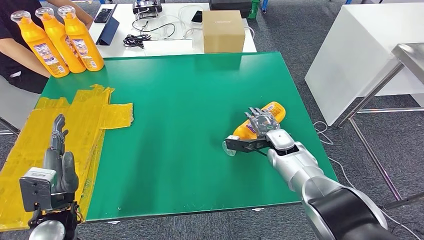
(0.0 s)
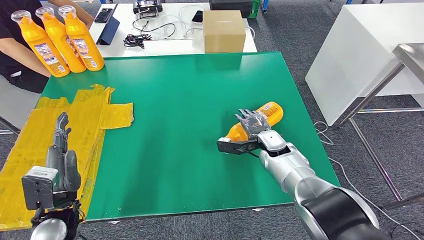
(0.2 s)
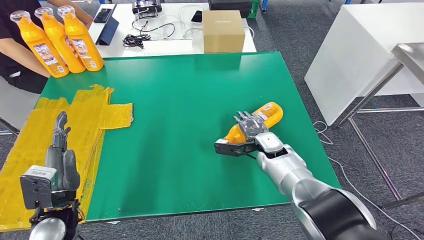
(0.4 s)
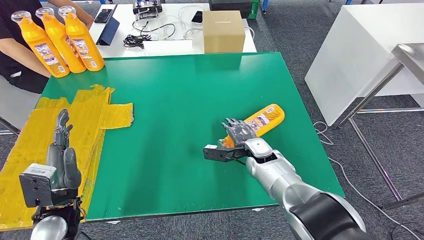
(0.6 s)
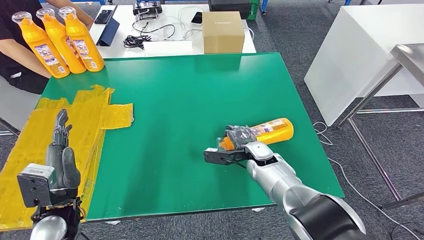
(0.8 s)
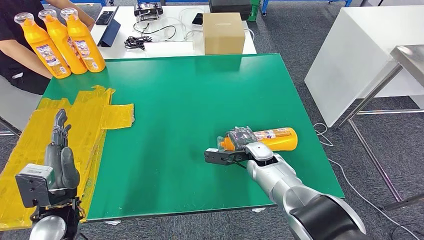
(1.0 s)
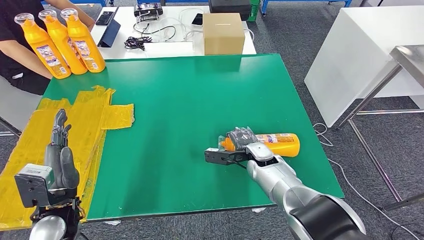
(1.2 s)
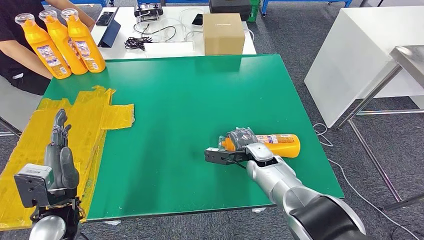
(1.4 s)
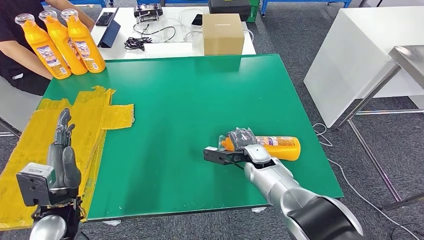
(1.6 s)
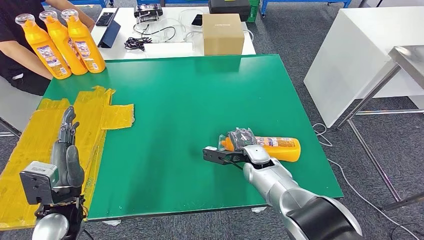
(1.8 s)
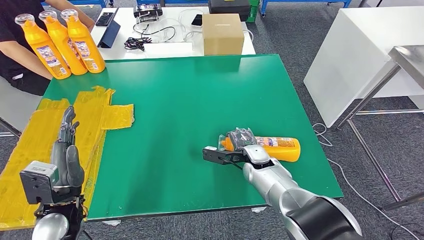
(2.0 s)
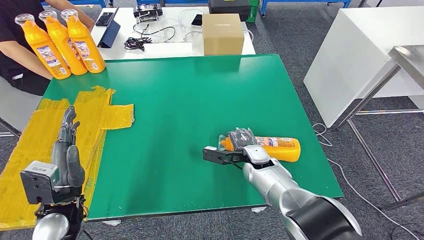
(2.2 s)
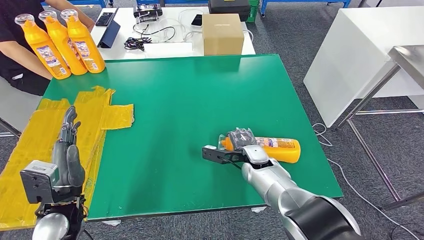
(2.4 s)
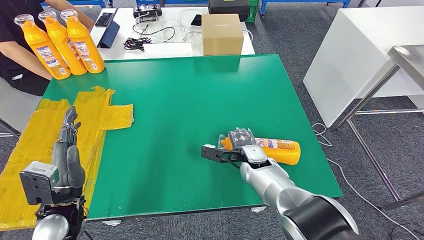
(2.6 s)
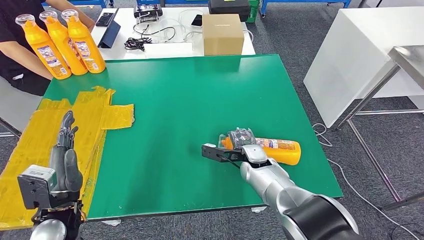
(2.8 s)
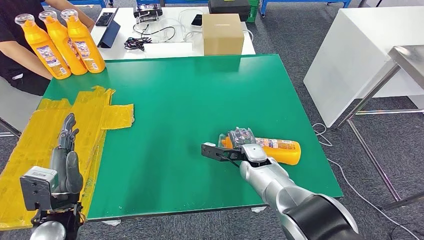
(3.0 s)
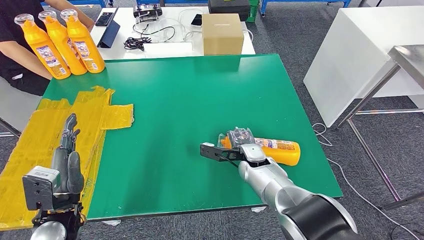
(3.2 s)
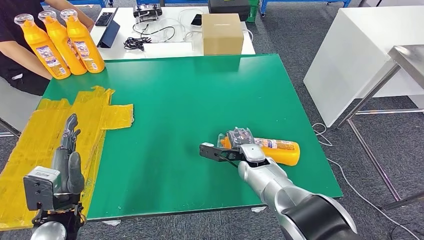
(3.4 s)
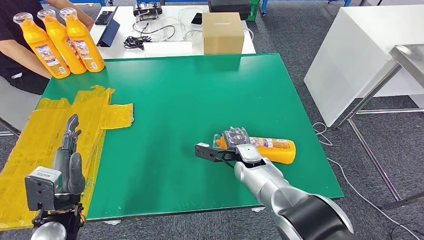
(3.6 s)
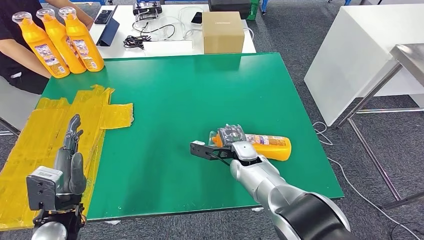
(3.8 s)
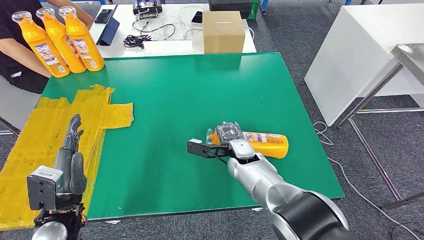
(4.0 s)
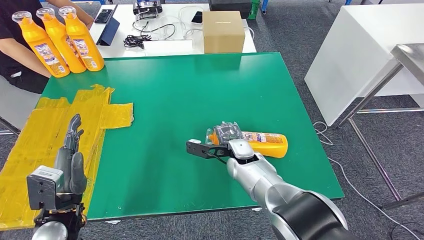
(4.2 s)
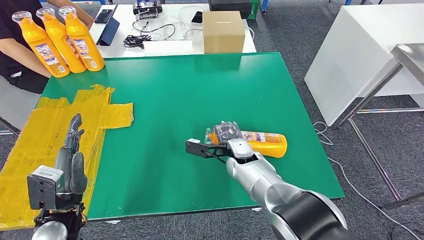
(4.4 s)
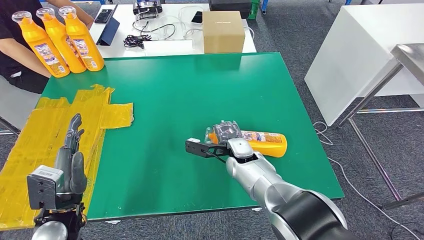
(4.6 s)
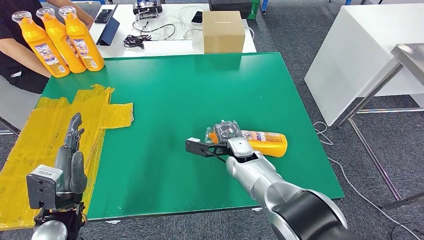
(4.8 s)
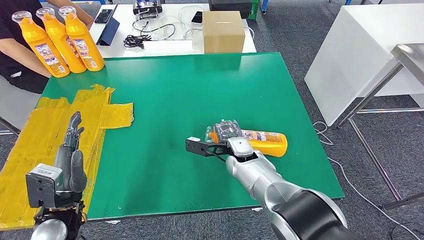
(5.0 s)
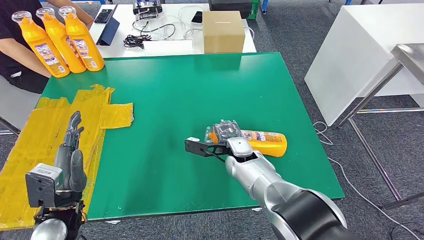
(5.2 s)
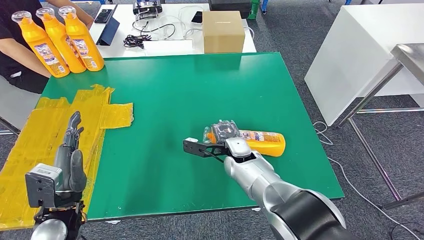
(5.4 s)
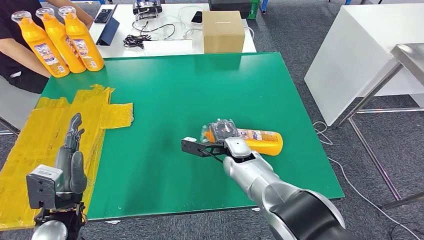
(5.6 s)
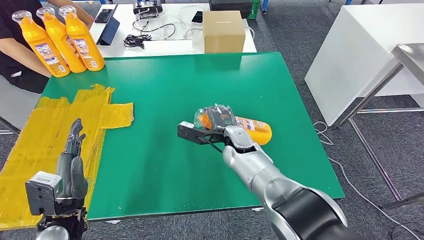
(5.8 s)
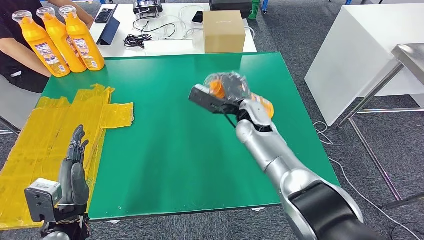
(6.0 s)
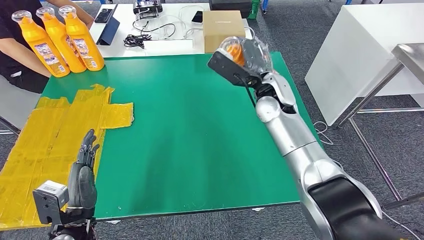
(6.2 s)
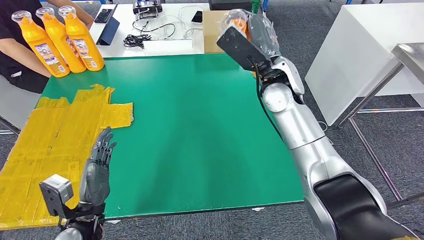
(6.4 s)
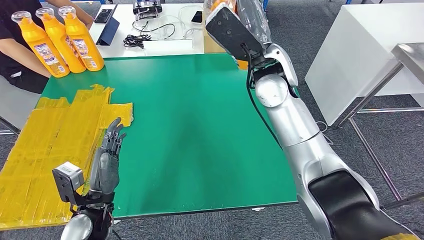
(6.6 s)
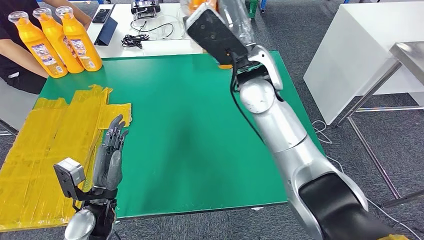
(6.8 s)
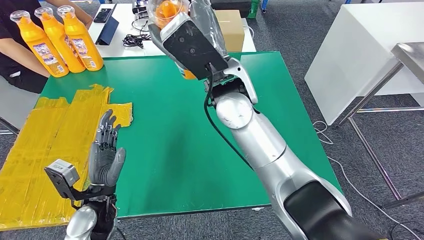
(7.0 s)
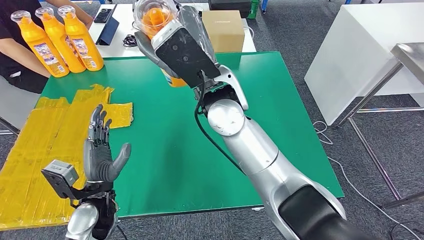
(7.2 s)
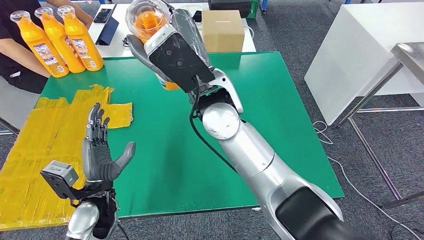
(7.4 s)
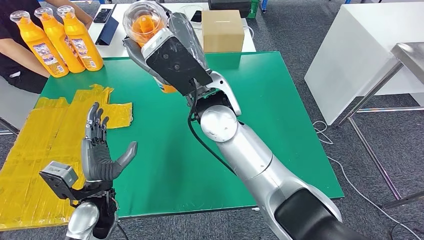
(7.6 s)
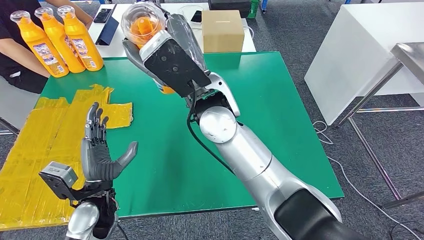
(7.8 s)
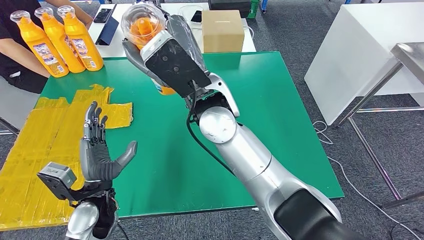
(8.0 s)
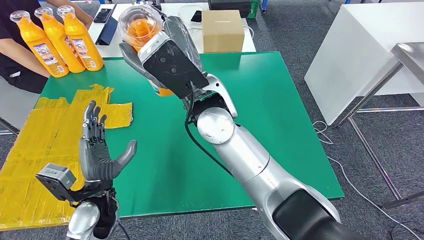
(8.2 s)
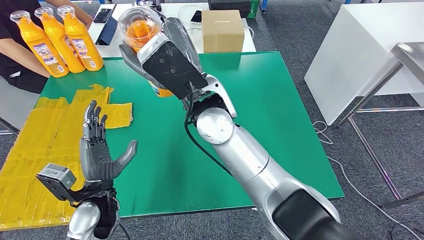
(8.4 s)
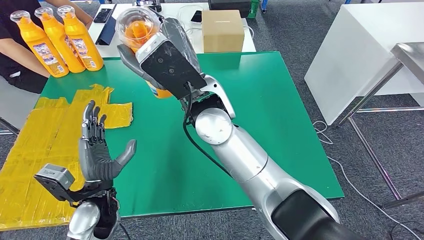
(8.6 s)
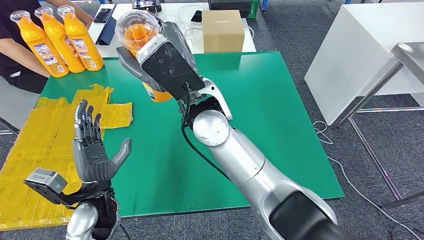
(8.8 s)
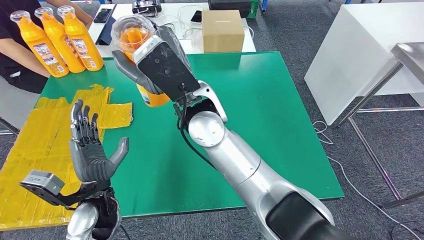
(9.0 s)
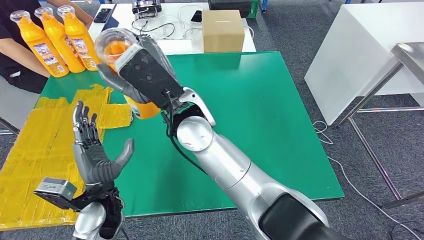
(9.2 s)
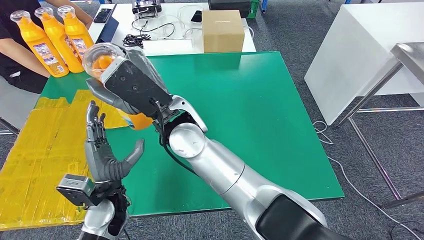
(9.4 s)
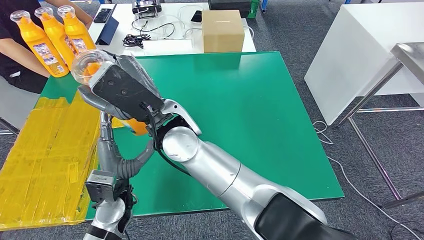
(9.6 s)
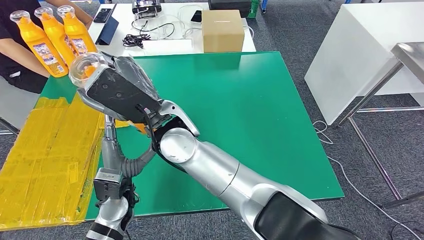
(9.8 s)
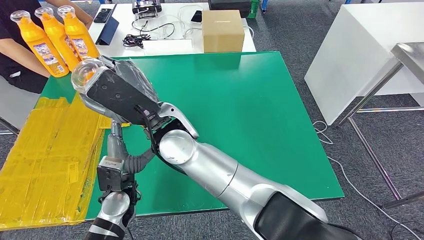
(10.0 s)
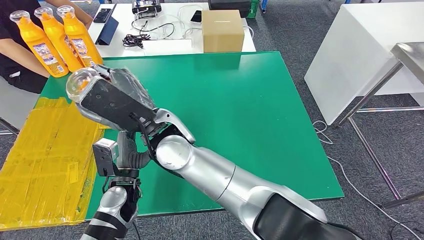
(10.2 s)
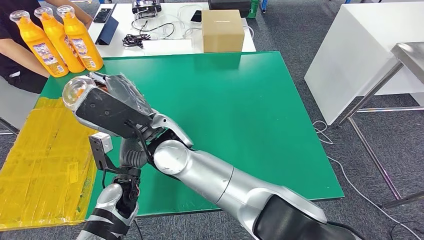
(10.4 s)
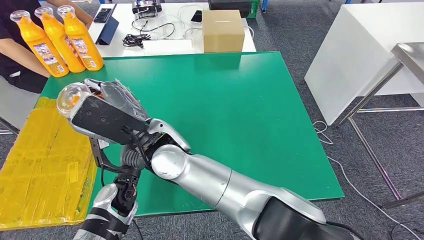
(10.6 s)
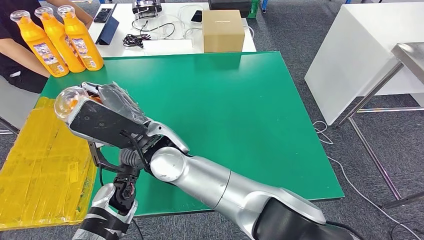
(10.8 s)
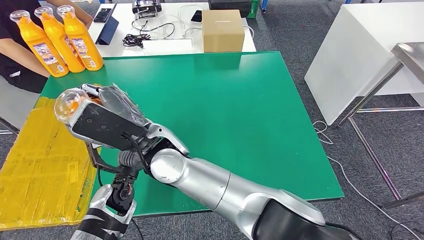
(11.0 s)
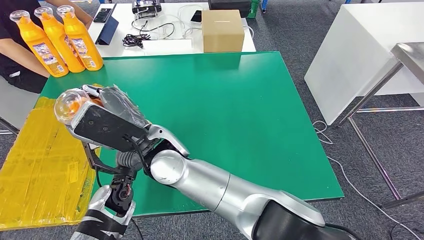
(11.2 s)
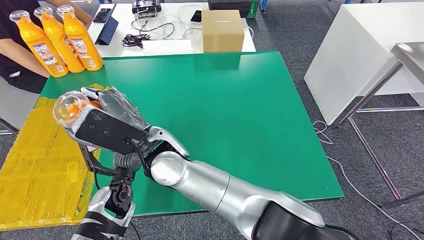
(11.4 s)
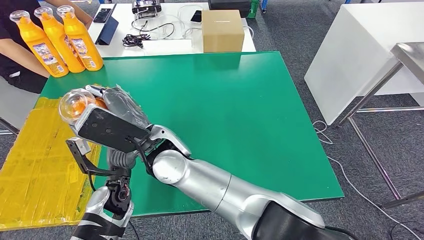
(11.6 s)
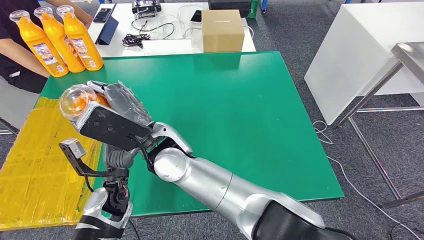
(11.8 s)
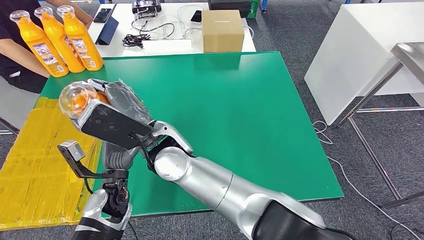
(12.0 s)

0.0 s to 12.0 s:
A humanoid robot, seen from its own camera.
Step, 0.0 to 7.4 s: Pick up the bottle from the table.
1.6 to 3.0 s: There are only small adjustments of the hands.
3.0 to 4.4 s: The right hand ends up approximately 5 cm from where it was.
4.4 to 6.0 s: The right hand goes roughly 10 cm upward.
7.6 to 9.0 s: The hands stay close to where they were, moving slightly.

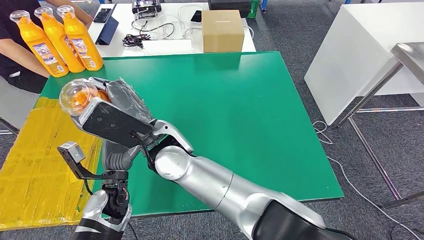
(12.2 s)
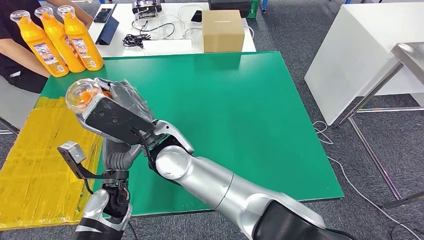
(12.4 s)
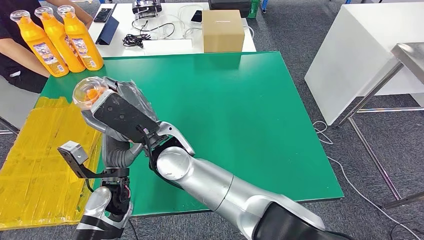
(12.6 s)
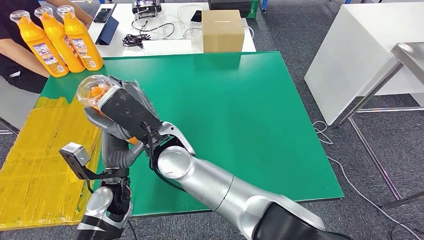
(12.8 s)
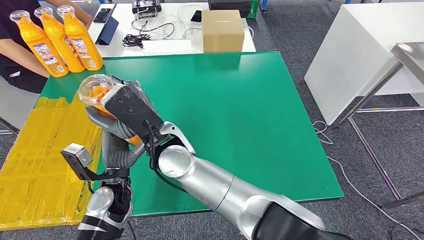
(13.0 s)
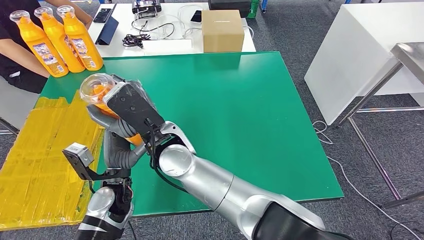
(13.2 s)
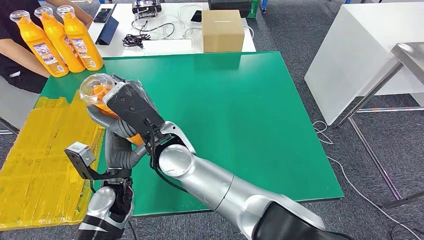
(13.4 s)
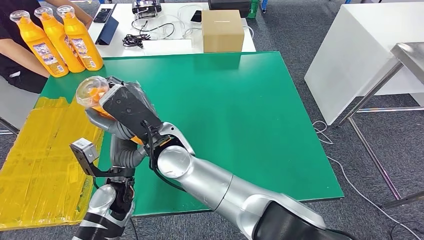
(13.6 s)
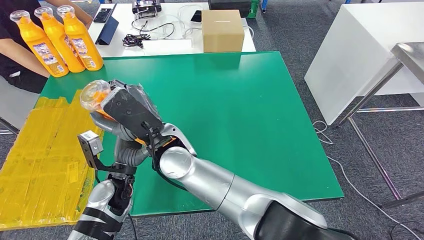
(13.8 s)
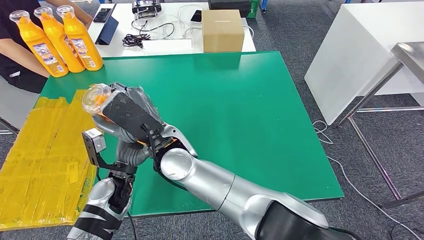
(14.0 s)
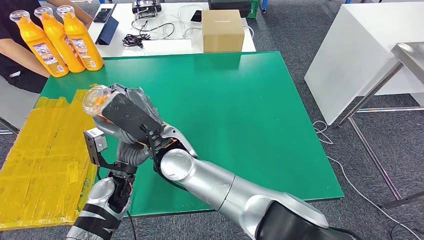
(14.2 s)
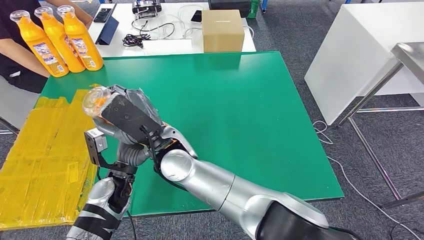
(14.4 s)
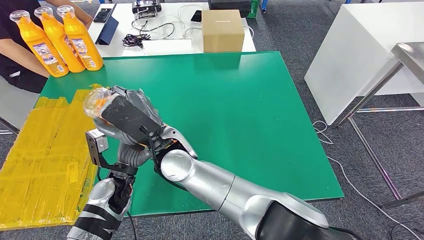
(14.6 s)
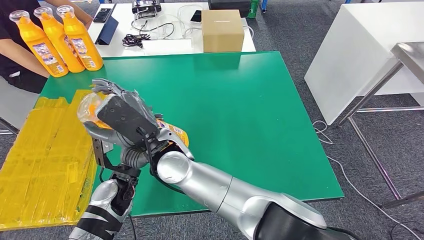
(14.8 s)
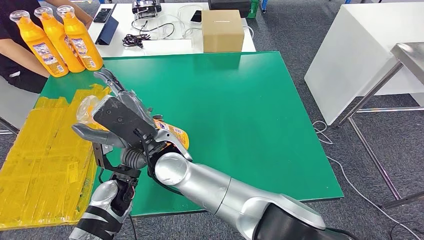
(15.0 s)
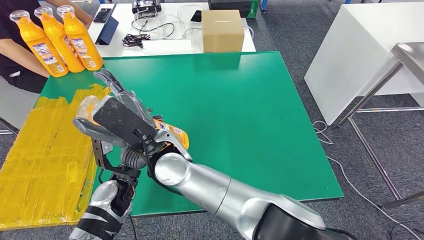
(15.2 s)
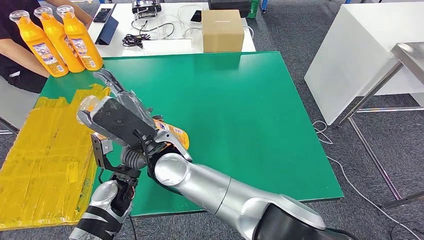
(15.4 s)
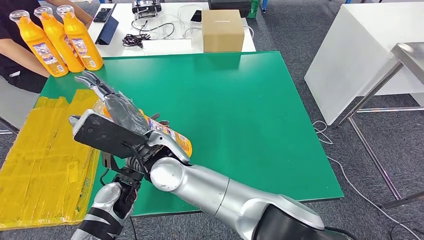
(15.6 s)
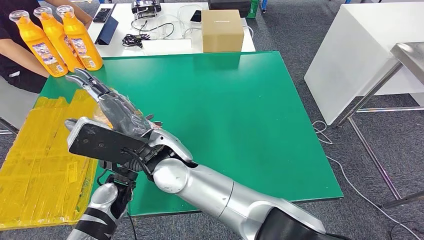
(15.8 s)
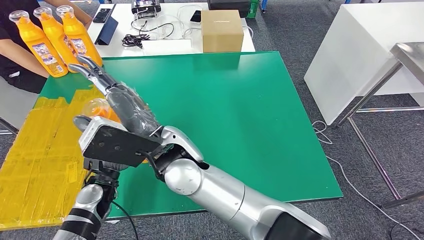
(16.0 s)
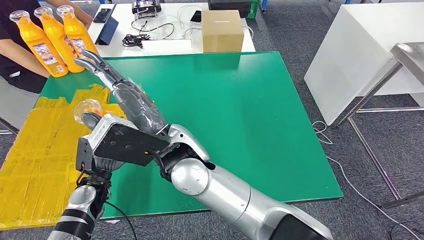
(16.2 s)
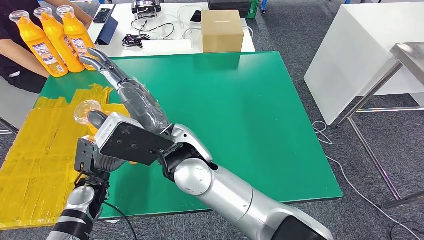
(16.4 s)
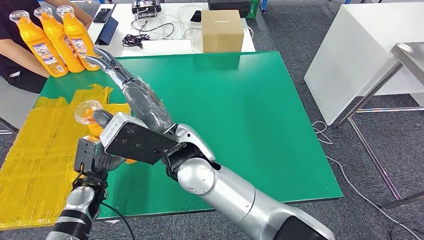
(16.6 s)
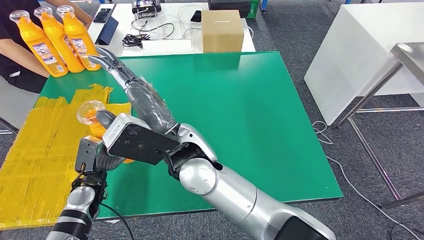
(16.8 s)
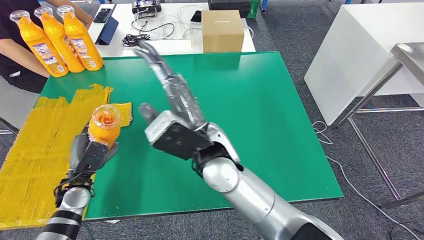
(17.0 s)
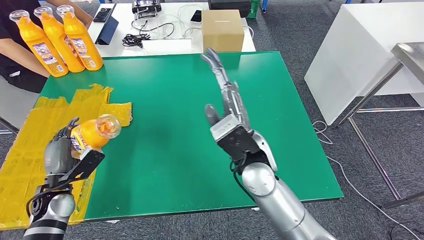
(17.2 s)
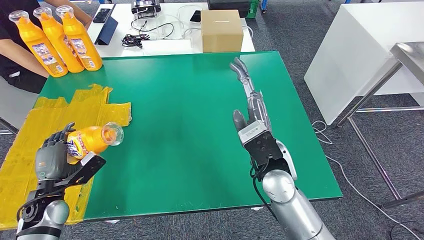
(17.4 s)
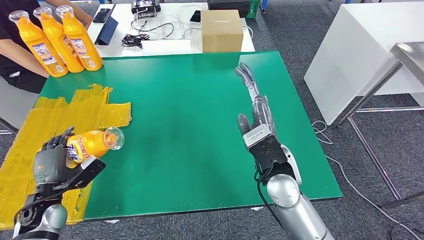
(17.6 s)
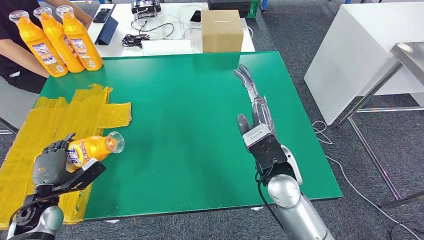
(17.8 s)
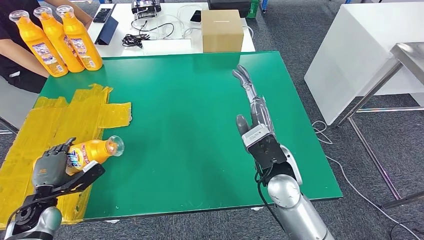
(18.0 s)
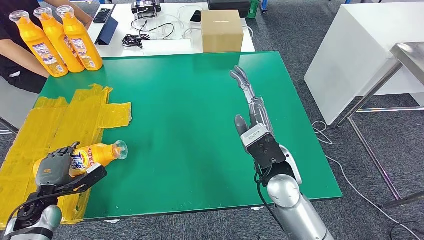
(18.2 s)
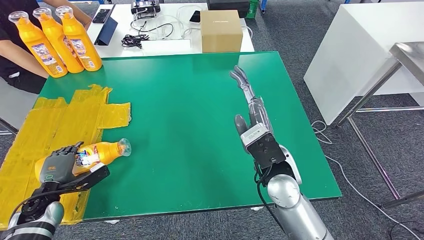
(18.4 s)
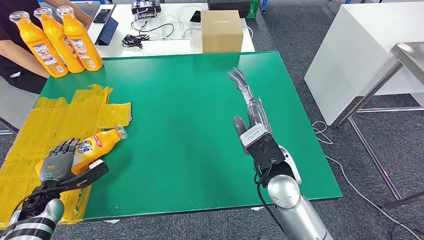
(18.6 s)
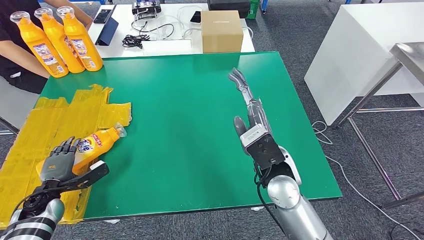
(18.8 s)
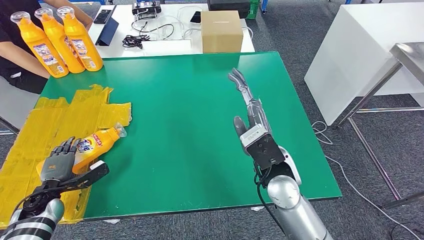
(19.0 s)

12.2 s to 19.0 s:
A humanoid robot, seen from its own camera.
12.2 to 13.6 s: There are only small adjustments of the hands.
13.6 to 15.0 s: The hands stay close to where they were, moving slightly.
15.0 to 16.2 s: The right hand ends up some 5 cm from where it was. Meanwhile the left hand travels to the left by approximately 10 cm.
17.6 to 19.0 s: The left hand ends up some 5 cm from where it was.
